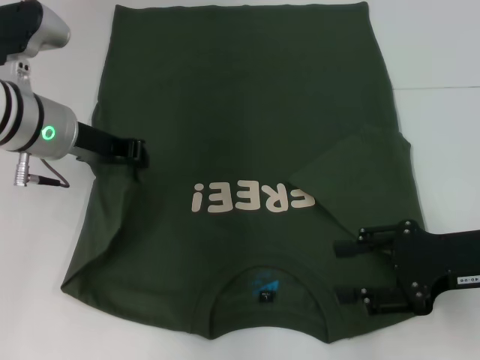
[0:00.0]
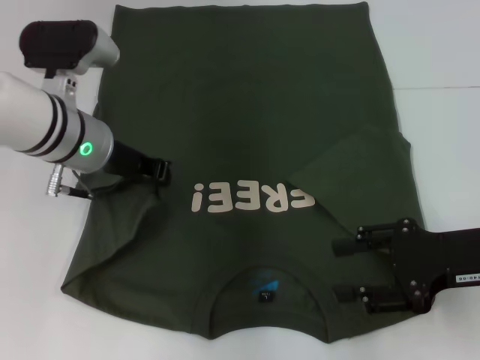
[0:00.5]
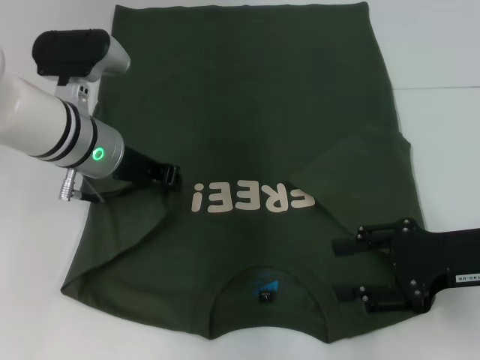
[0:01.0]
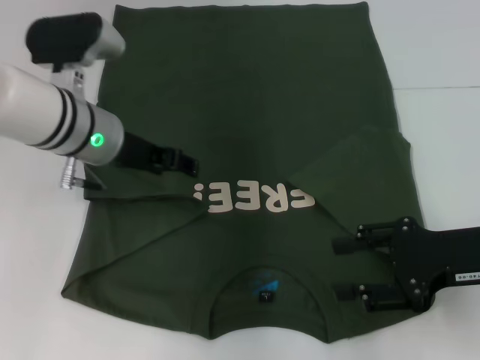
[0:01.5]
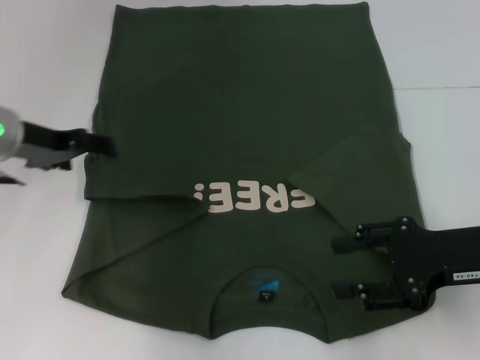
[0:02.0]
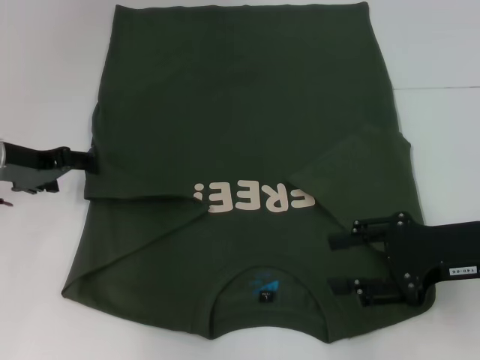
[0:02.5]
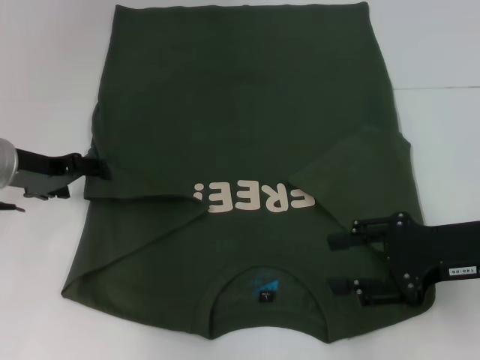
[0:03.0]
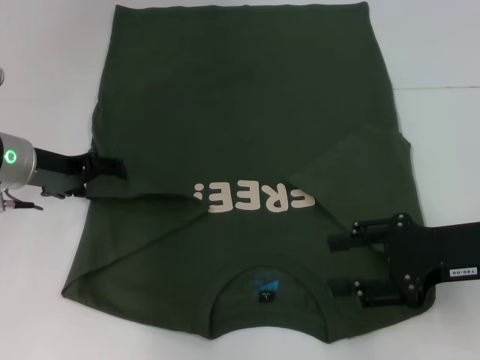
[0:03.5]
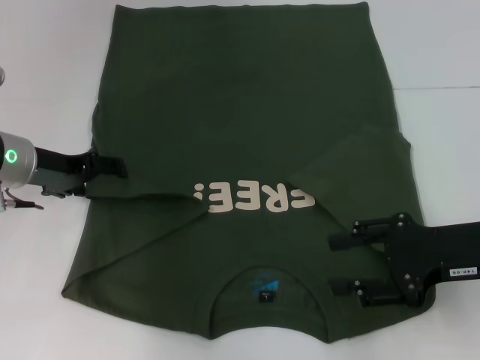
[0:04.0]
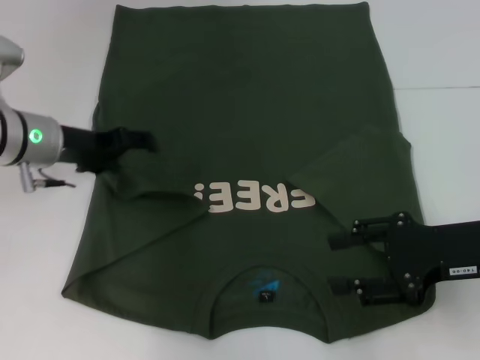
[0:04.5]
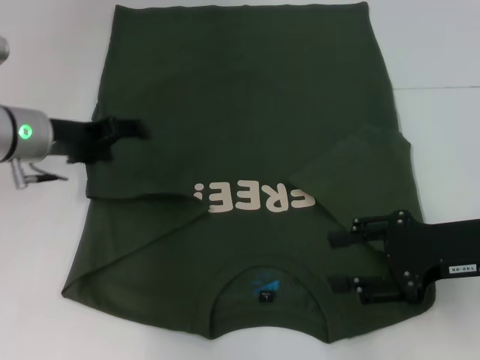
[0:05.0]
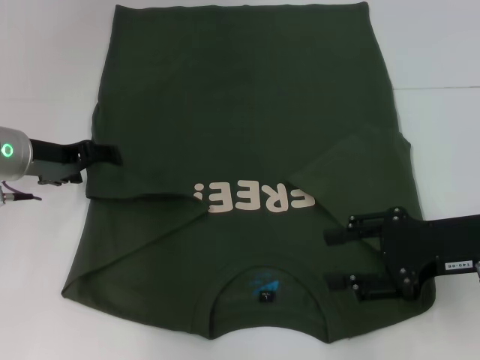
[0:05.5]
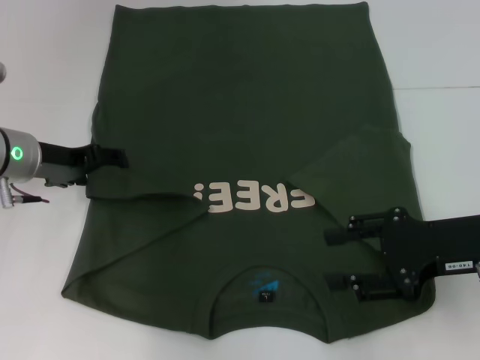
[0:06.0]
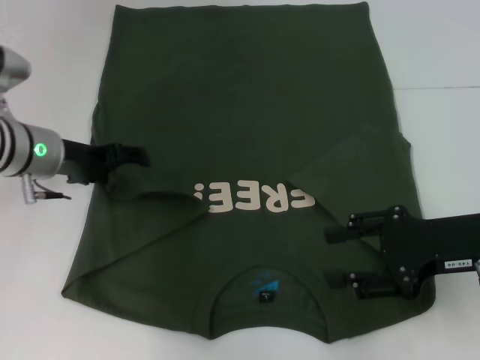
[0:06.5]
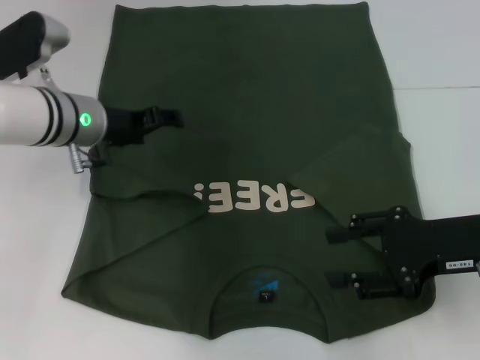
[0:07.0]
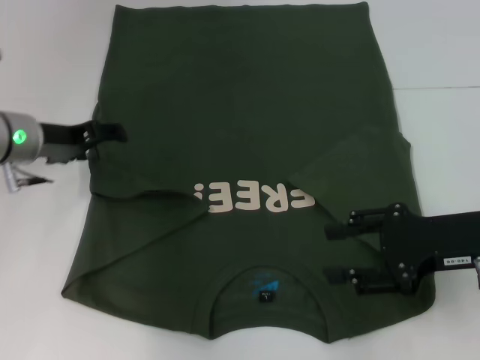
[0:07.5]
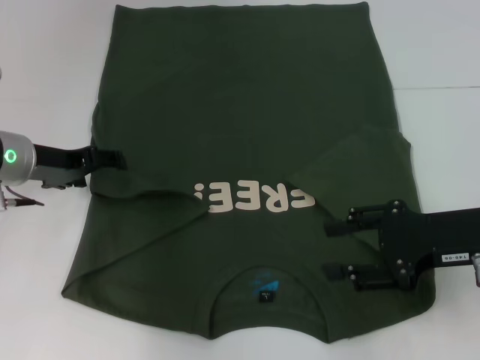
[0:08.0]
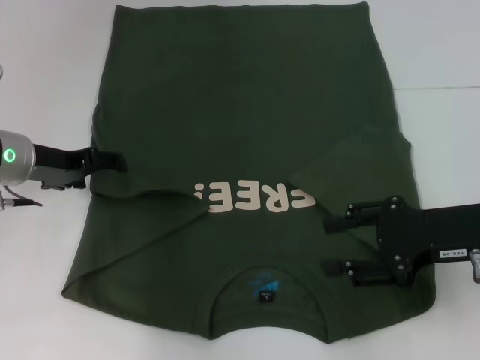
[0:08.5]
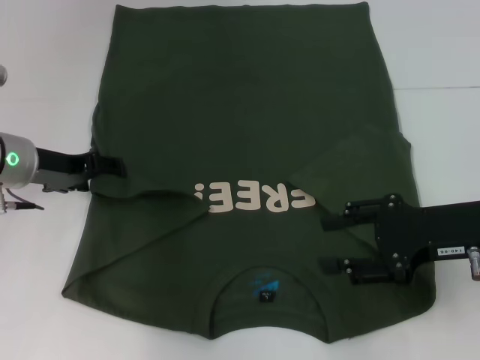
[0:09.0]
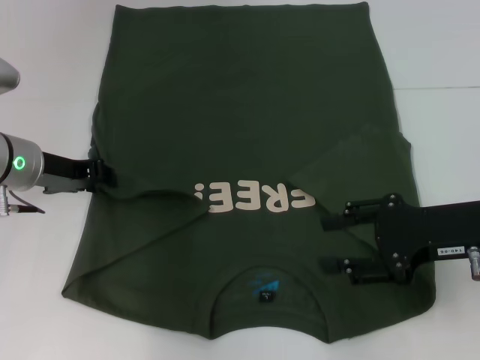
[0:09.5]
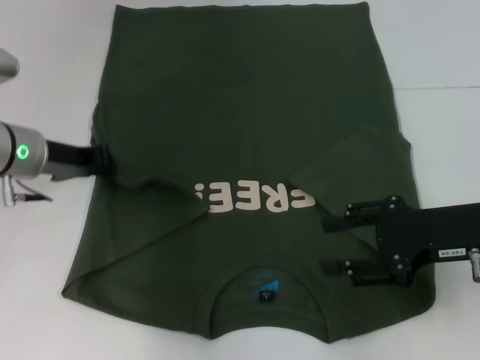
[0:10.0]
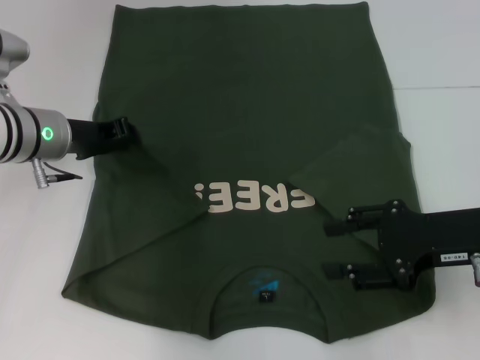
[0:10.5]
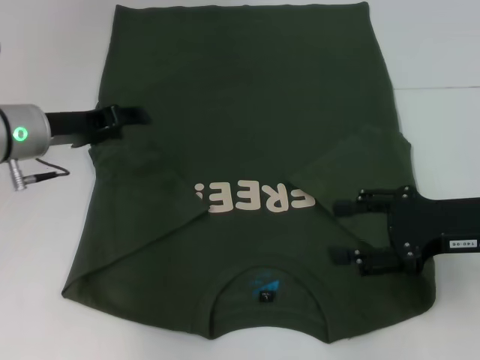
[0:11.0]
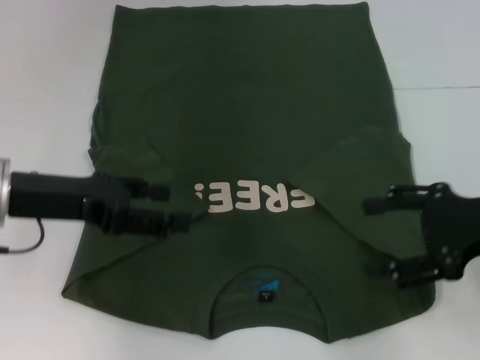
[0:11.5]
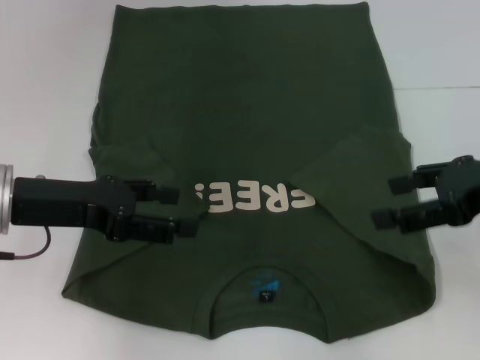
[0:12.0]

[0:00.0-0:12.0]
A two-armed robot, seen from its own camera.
Step, 0:00.0 to 0:11.0: Fold the bottom left sleeve with your left hand.
0:00.0 to 0:02.0: The left gripper goes some 5 cm to the left, and opens its fingers.
0:02.0 to 0:06.0: The grippers stay close to where they were, moving slightly.
0:08.0 to 0:10.0: The left gripper closes its fingers.
0:10.0 to 0:12.0: The right gripper is displaced upward by approximately 10 cm, while the left gripper moves backward, roughly 10 cm, and opens up.

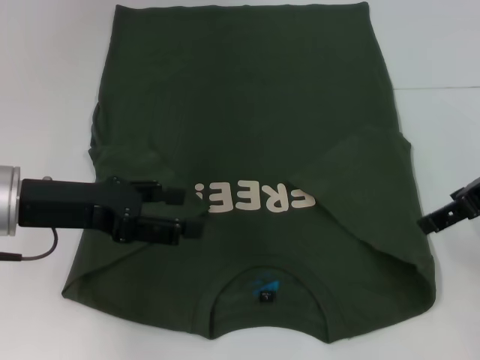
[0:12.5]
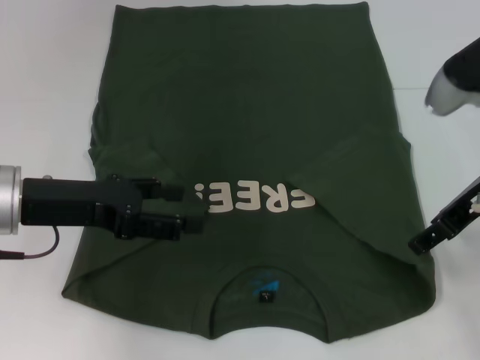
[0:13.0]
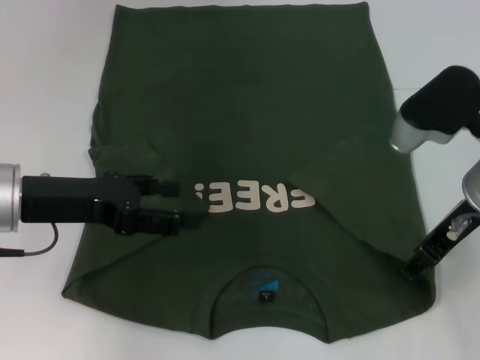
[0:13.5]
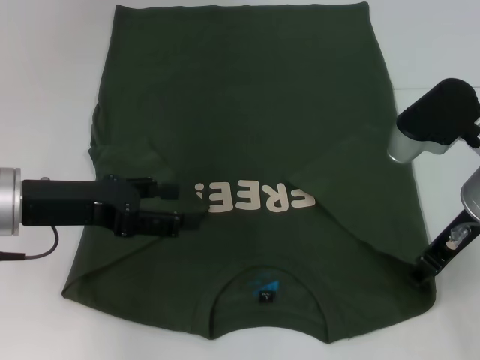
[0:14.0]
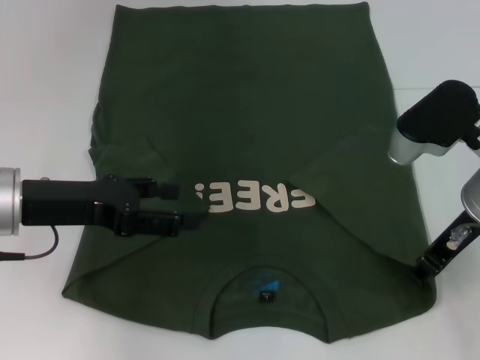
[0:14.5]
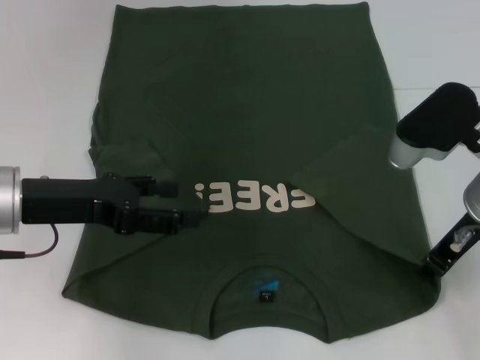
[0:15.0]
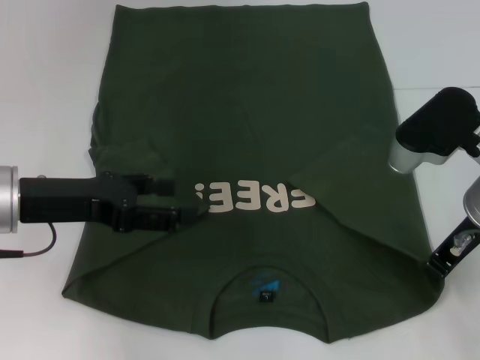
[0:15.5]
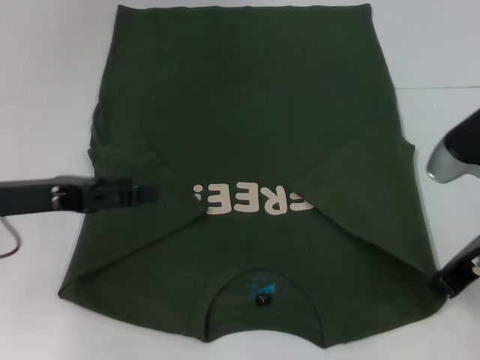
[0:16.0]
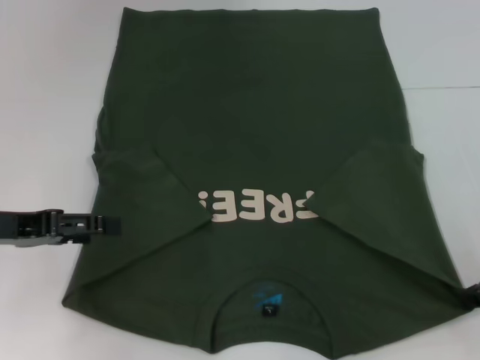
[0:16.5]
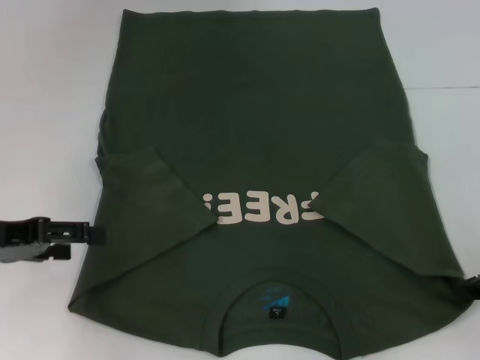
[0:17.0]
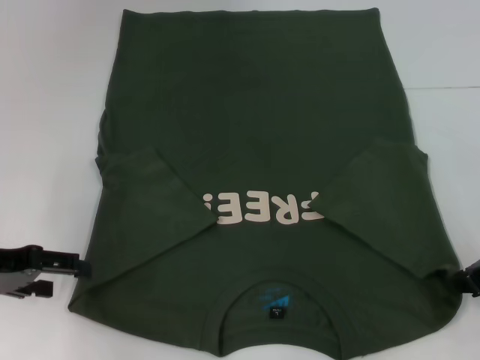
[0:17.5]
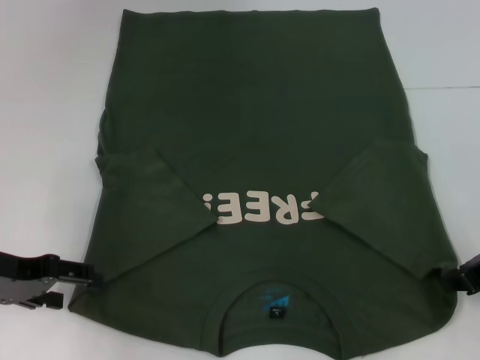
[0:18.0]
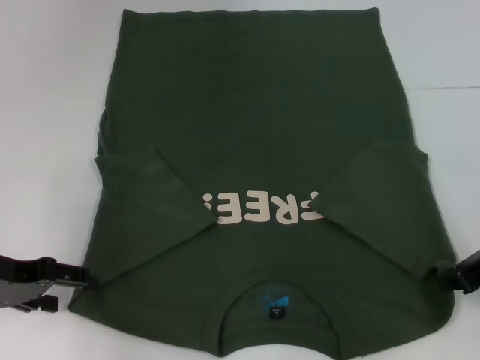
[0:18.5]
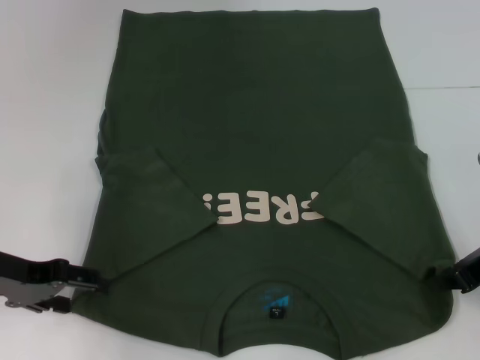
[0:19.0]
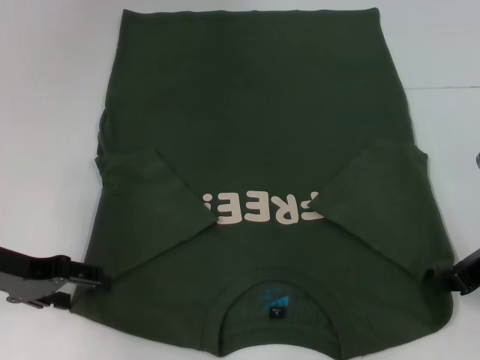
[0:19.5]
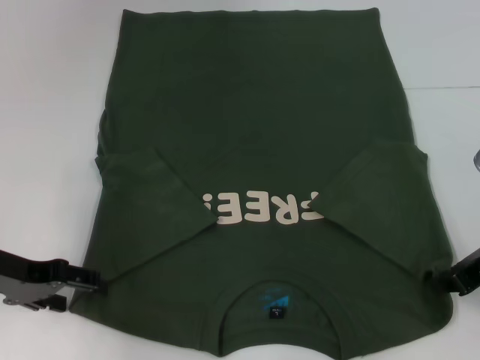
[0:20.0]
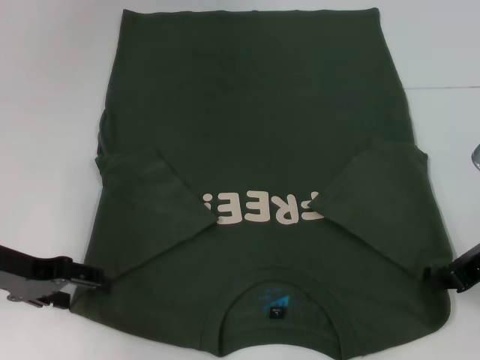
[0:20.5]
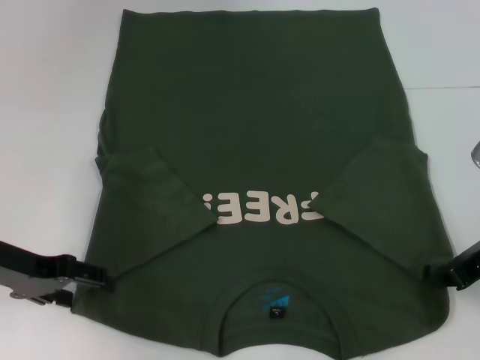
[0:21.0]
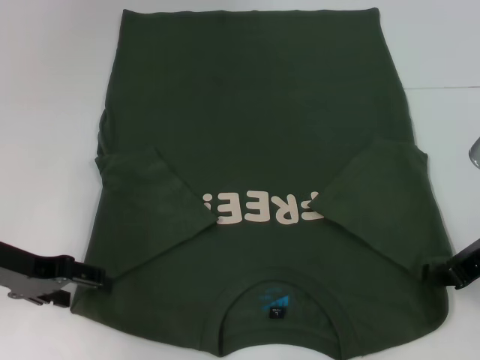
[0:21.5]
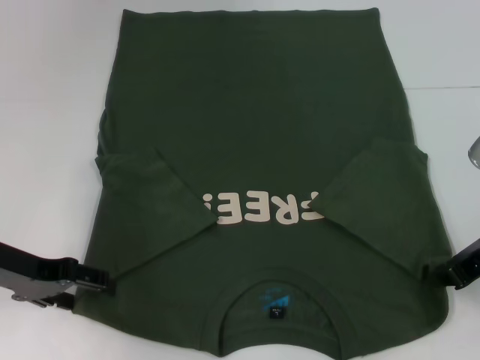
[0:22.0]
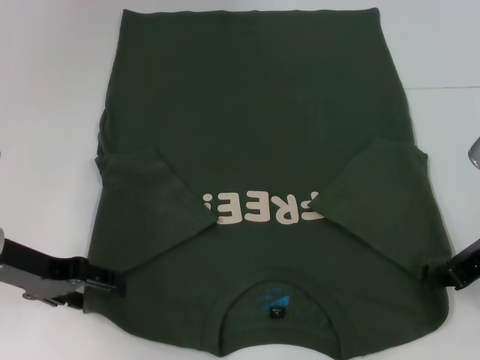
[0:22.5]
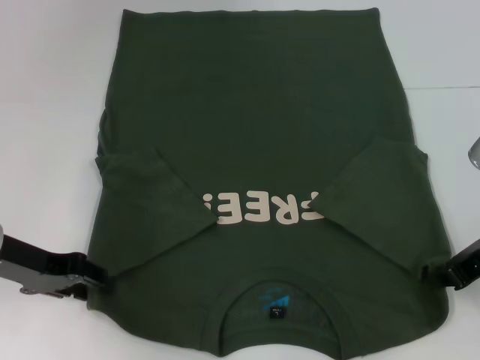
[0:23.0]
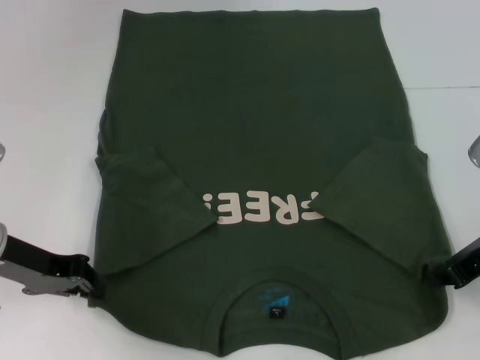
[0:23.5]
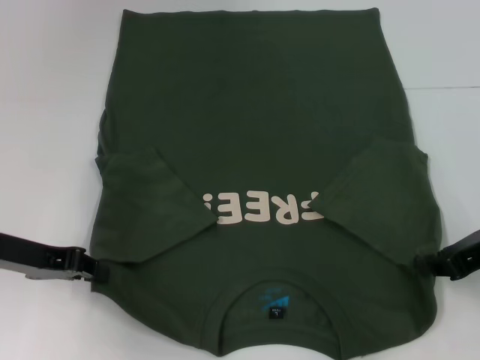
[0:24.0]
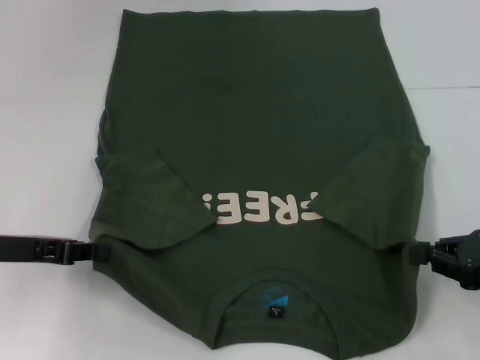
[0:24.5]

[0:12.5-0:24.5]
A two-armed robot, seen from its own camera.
Step, 0:12.5 to 0:15.5: Grab the bottom right corner with your right hand.
Step, 0:16.0 to 0:23.5: Grab the bottom left corner with your left hand.
0:12.5 to 0:14.5: The right gripper is displaced downward and to the left by some 10 cm, and closes.
0:14.5 to 0:16.5: The right gripper heads to the right and backward, covering approximately 10 cm, and closes, while the left gripper moves to the left, approximately 5 cm.
0:18.5 to 0:22.5: The grippers move only a little.
0:22.5 to 0:24.5: The left gripper closes. The right gripper shifts some 5 cm to the right.

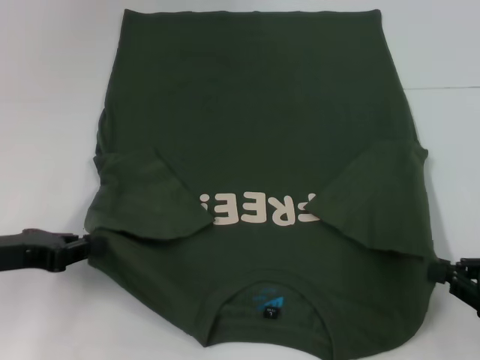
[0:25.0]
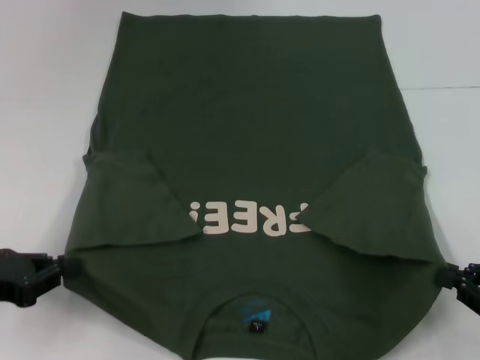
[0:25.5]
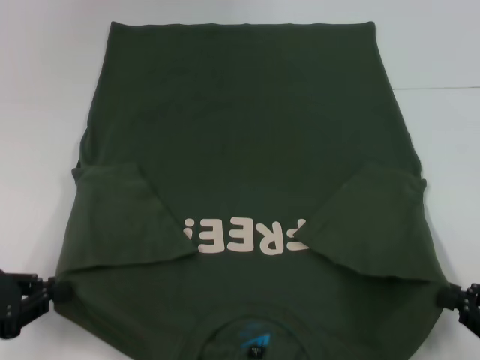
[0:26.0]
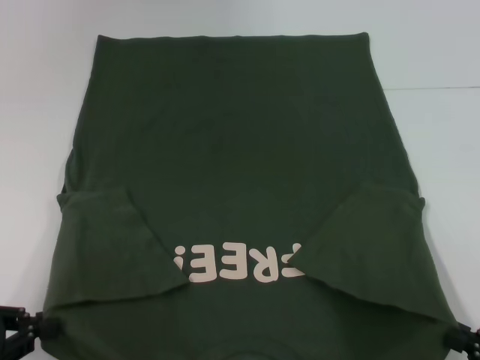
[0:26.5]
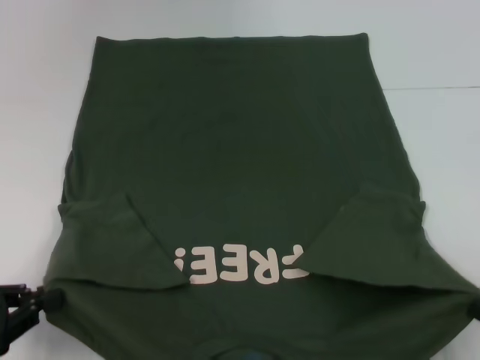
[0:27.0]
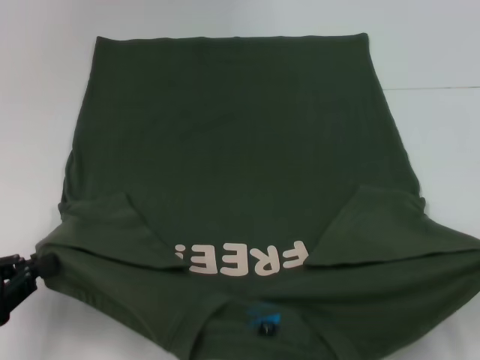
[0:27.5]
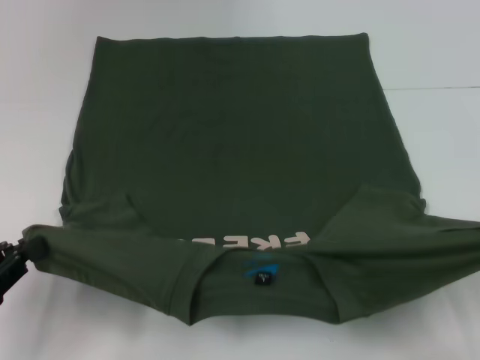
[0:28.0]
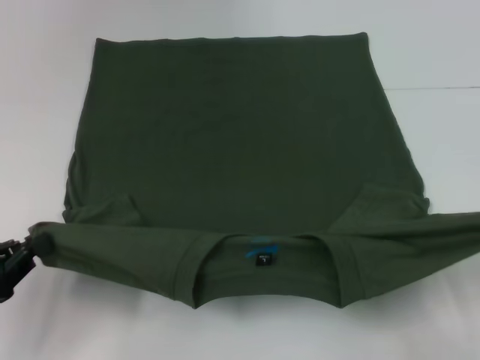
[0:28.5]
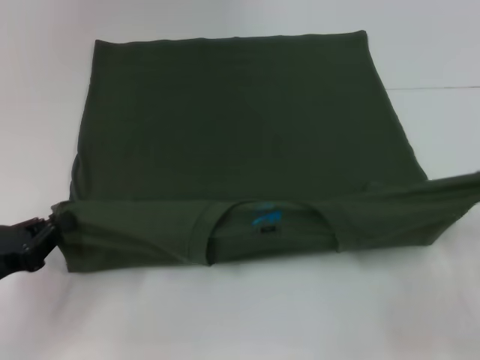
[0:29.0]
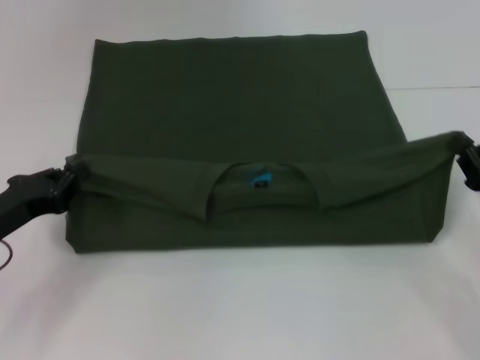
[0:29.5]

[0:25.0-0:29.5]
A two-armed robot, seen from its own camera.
0:25.0 to 0:27.0: Both grippers move backward, roughly 10 cm.
0:27.0 to 0:29.5: The two grippers go roughly 15 cm forward.
